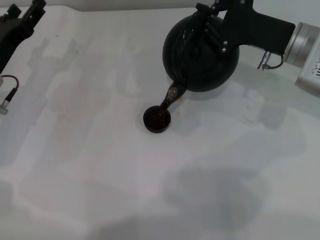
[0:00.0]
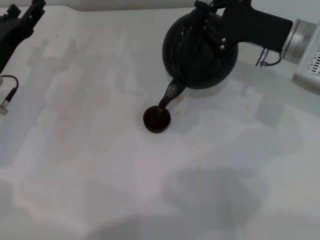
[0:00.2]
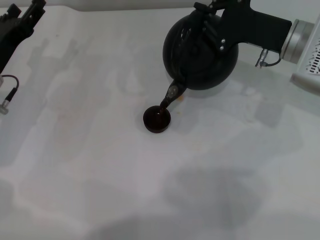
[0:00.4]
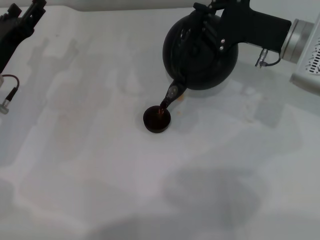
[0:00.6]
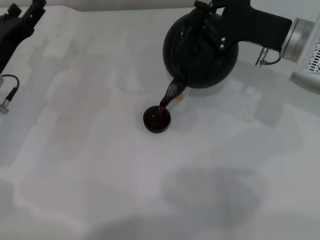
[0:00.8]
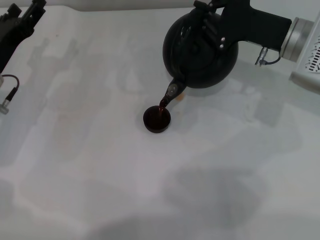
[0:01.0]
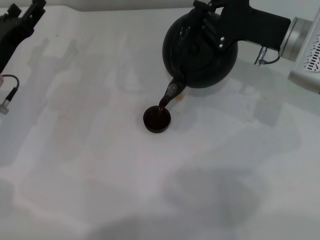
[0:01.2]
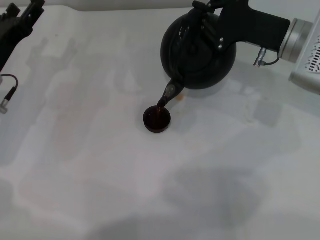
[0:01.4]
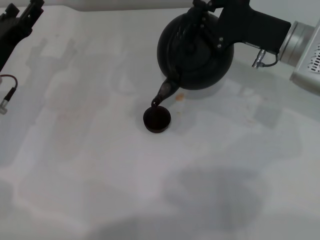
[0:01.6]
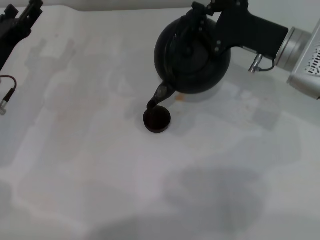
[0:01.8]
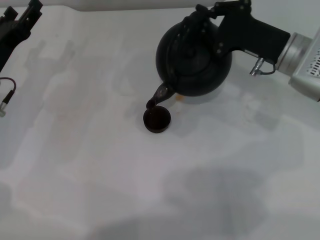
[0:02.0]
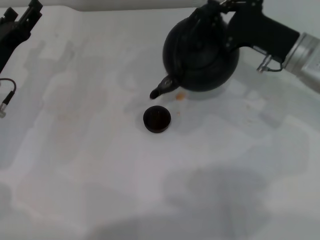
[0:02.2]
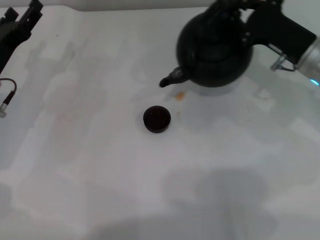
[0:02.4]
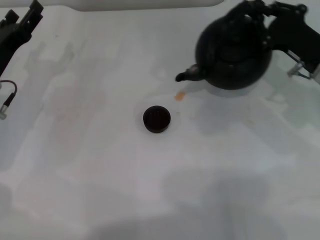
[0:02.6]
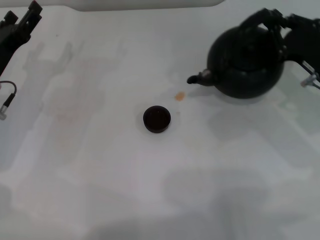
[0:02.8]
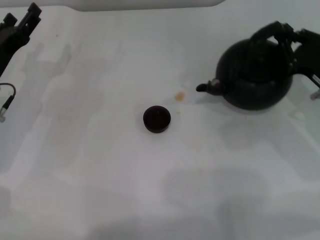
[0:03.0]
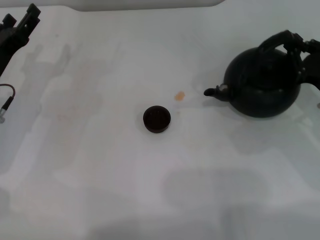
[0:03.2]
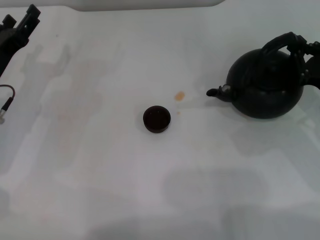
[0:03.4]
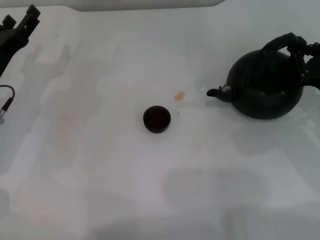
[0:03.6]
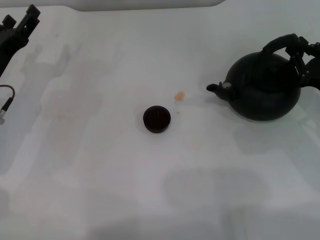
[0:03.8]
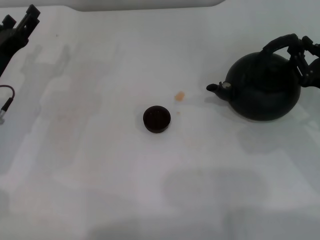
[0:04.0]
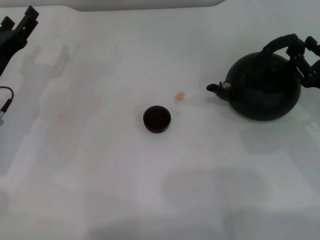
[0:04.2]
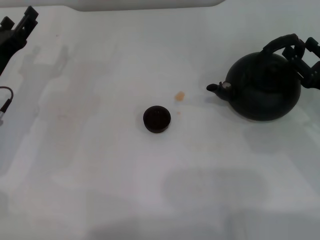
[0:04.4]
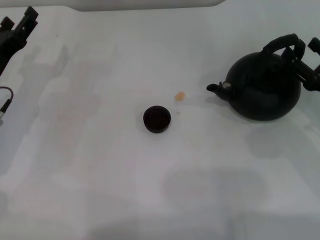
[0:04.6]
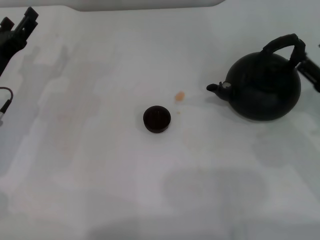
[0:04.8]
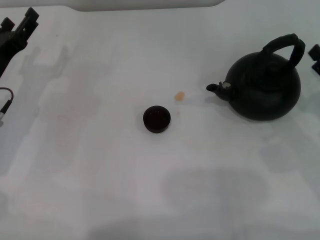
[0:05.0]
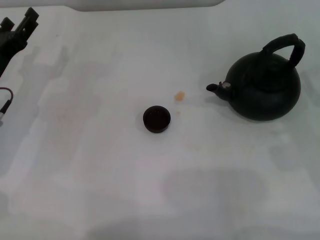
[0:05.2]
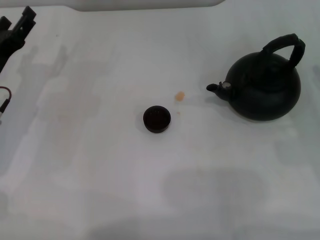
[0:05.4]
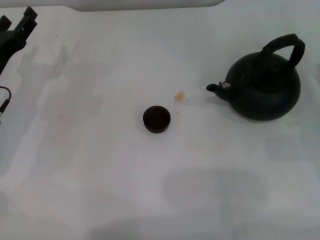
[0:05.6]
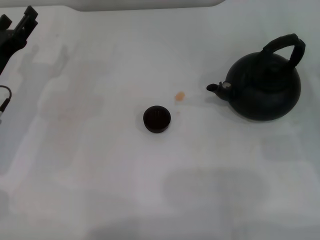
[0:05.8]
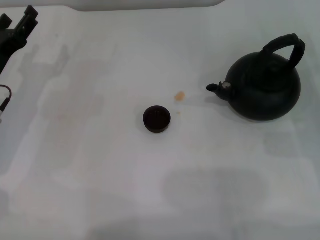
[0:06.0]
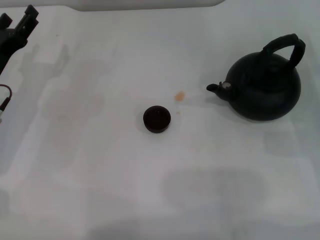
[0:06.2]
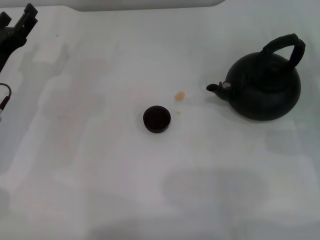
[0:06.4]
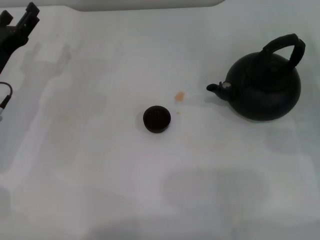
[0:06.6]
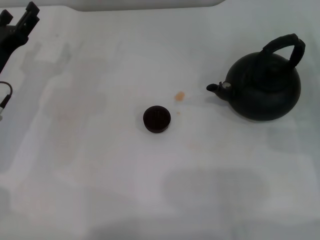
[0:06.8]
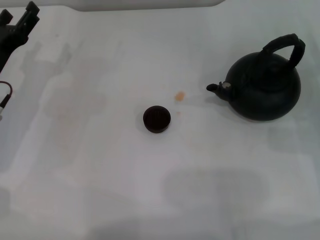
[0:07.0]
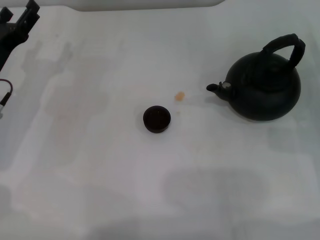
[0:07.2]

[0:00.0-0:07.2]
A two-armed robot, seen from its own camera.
Task of the whole recording: Grasp the handle of the teapot with one hand and pour tea into the teacup.
Step, 0.0 to 2.4 s: Pour tea into the teacup with the right gripper.
Step, 2.6 to 4.6 s: Put down the teapot with the right gripper.
0.0 to 1.4 s: The two grippers keep their place.
1.4 to 2.8 s: The right gripper goes some 10 cm to the right and backward.
2.8 to 4.4 s: The right gripper moves some 5 cm, and opens.
4.4 to 5.8 s: The right gripper opens its fingers.
5.8 to 7.2 s: The grippers make only small movements.

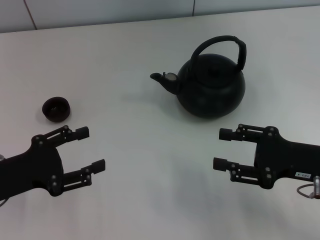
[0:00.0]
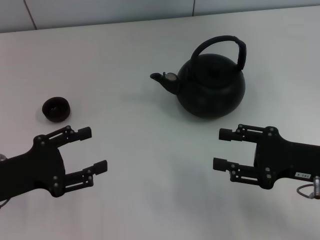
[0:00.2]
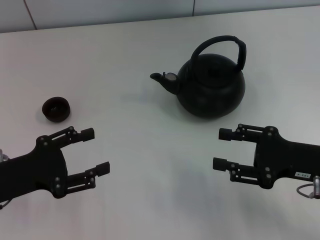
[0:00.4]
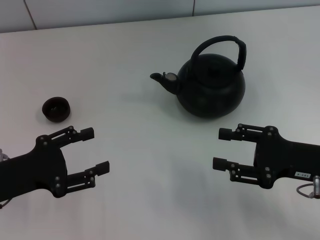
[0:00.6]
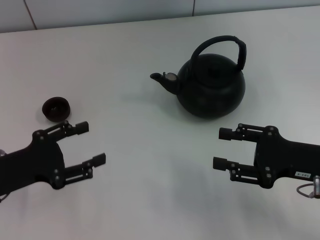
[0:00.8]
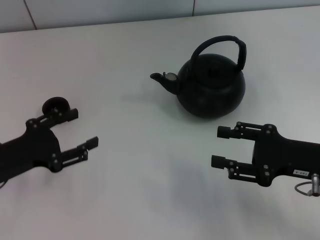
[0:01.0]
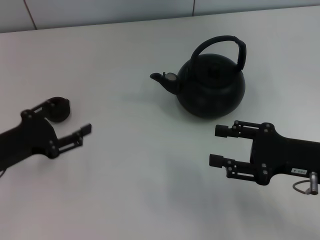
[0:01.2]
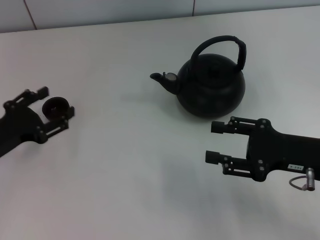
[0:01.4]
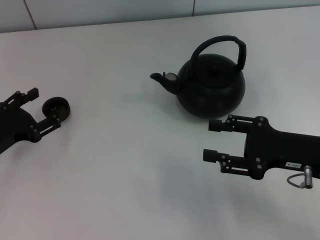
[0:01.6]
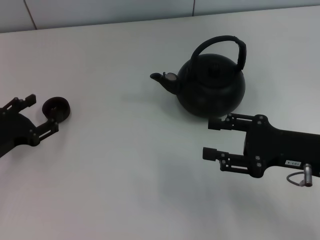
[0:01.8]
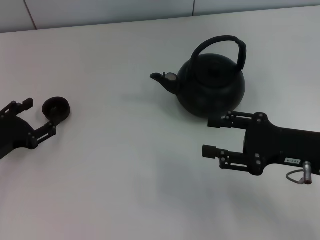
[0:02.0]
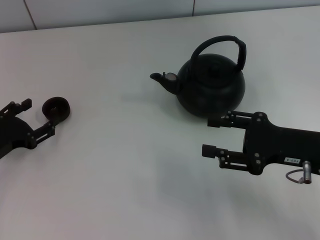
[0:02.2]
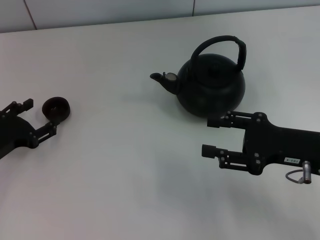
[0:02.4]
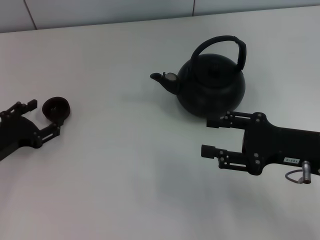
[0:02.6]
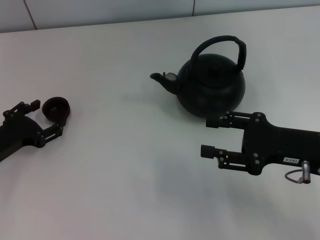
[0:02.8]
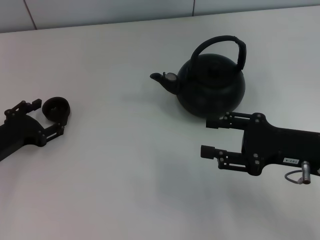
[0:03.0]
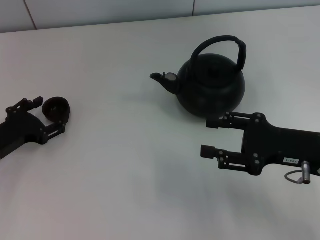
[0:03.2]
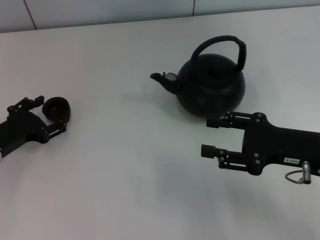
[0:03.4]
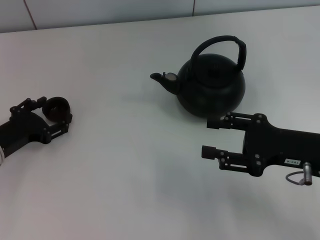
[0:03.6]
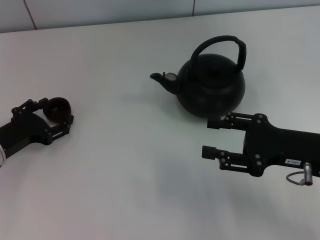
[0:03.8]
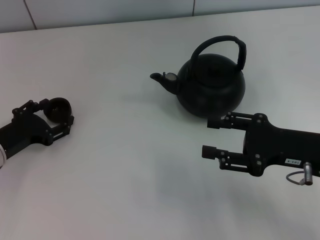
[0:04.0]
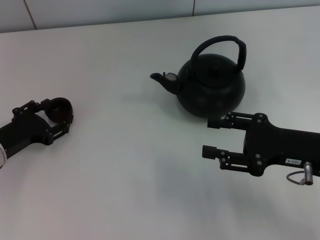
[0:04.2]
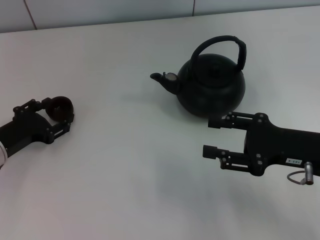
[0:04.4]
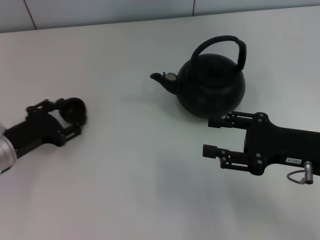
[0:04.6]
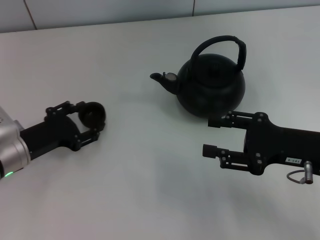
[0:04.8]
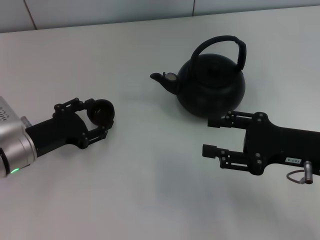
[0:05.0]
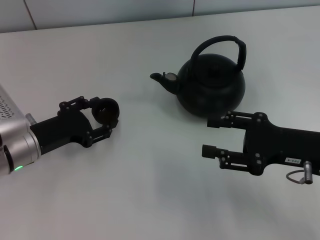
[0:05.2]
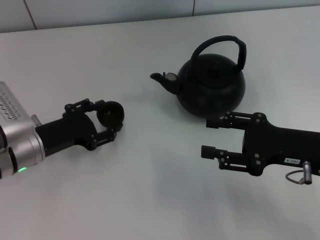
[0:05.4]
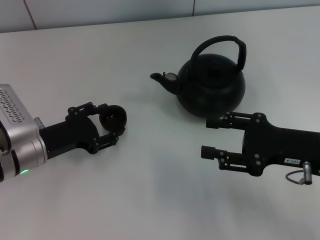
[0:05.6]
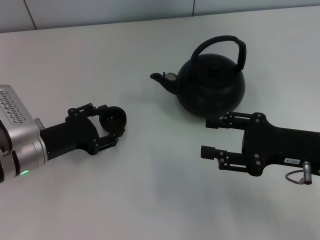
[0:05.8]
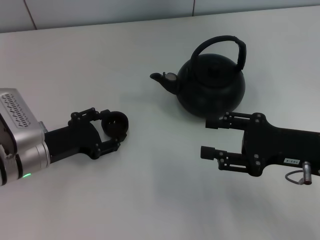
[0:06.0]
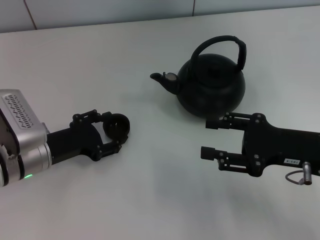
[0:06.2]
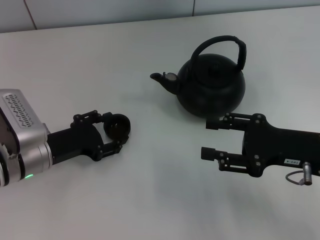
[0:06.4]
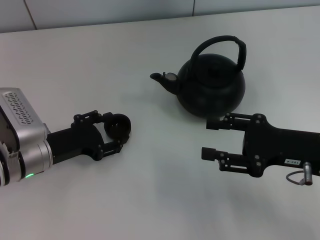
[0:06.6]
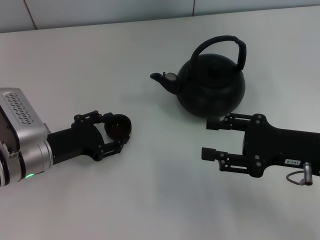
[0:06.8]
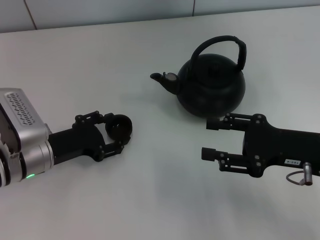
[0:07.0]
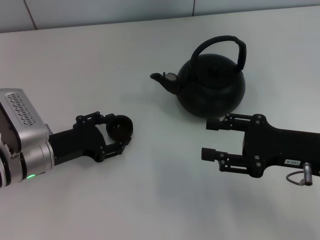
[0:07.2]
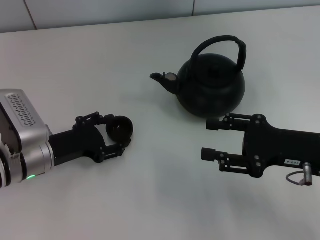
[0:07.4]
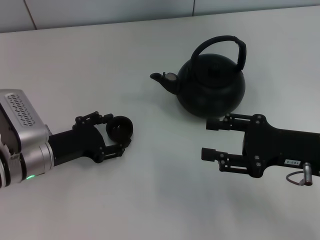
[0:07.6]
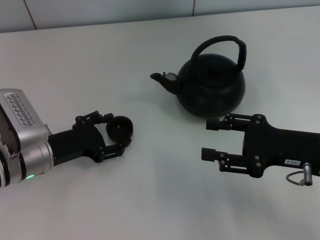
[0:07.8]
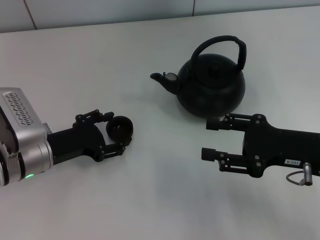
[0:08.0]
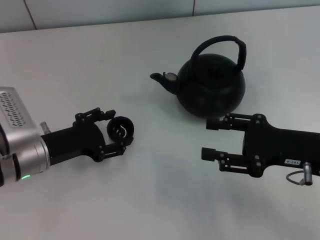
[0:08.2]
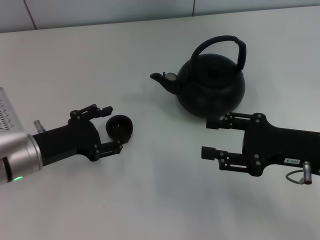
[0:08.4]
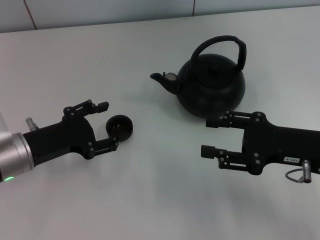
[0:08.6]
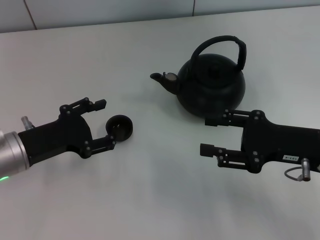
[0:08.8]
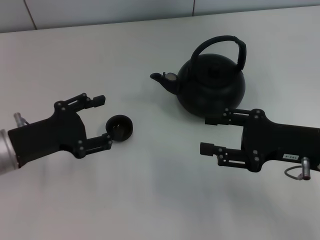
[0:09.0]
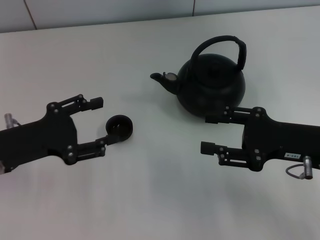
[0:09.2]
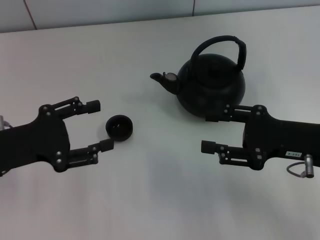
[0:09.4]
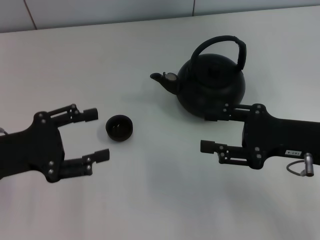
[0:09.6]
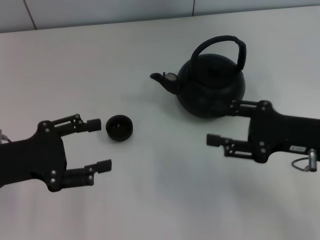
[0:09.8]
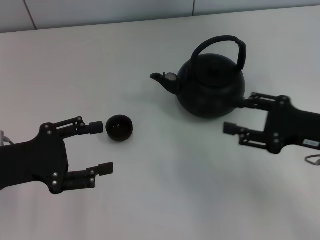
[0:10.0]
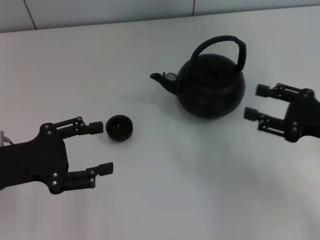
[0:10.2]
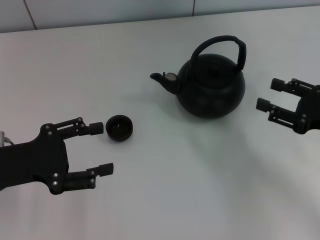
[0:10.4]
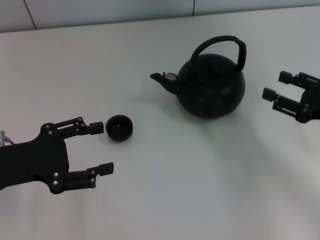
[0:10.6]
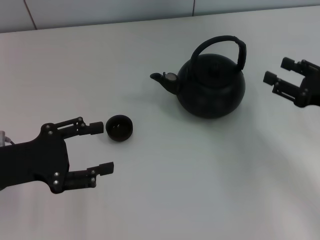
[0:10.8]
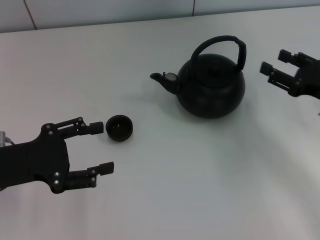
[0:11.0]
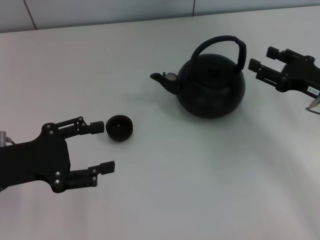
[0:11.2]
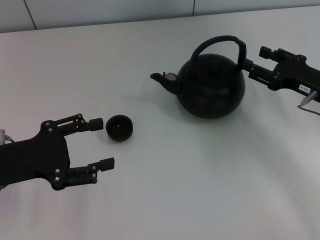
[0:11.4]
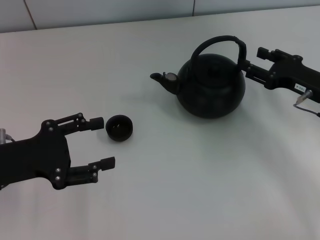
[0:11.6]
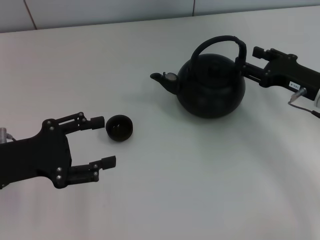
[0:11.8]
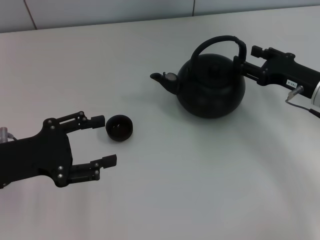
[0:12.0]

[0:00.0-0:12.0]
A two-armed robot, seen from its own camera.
Task of the whole recording: Grasp the handle of the teapot with one hand and pour tea into the teacup.
Step, 0.0 to 4.8 s: Pick up the teacup with the left gripper.
Step, 5.0 to 8.4 s: Place the teacup in the center of view with the left gripper.
0.0 to 1.6 s: The left gripper shifts by about 5 cm.
1.6 to 3.0 s: The grippers make only small movements.
3.0 to 4.4 s: Both grippers stay about where they are.
4.4 to 6.0 s: The left gripper heads to the right, covering approximately 5 cm.
6.0 to 7.6 s: Neither gripper changes place.
7.6 to 9.0 s: The left gripper shifts approximately 5 cm upward.
9.0 to 10.4 s: The right gripper heads to the right, covering approximately 5 cm.
10.4 to 12.0 s: The right gripper moves forward, roughly 10 cm.

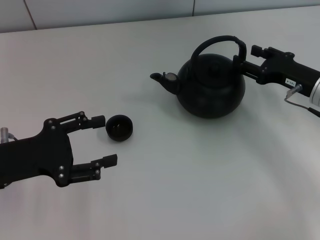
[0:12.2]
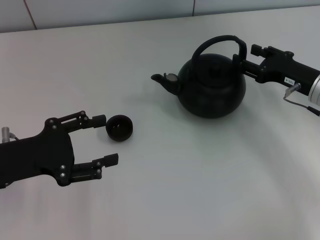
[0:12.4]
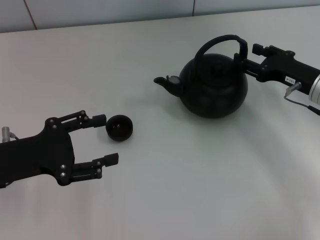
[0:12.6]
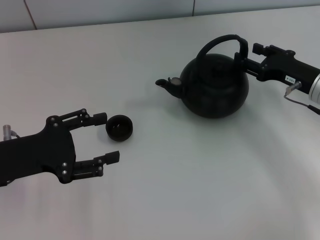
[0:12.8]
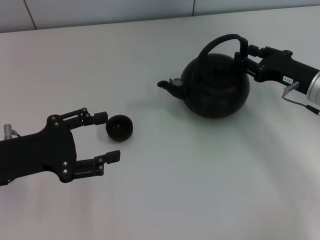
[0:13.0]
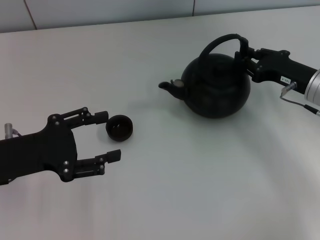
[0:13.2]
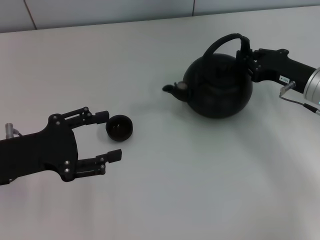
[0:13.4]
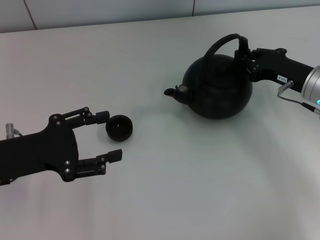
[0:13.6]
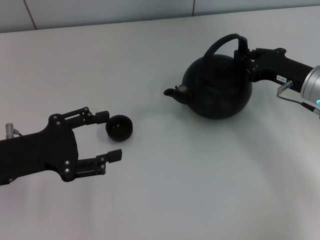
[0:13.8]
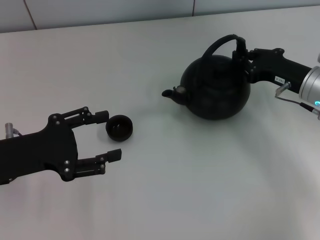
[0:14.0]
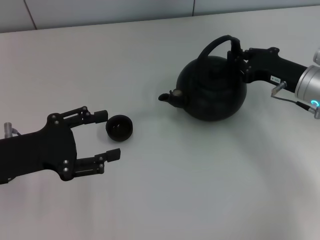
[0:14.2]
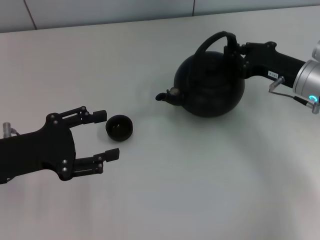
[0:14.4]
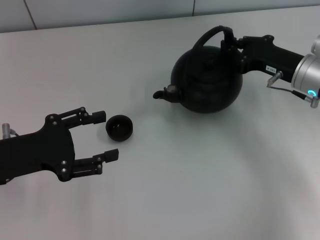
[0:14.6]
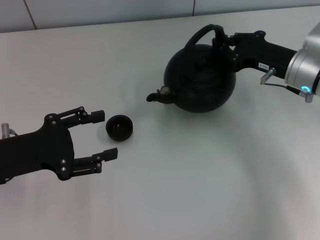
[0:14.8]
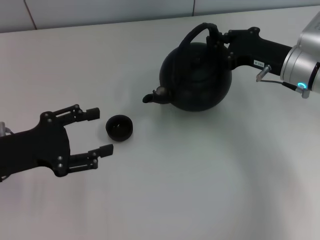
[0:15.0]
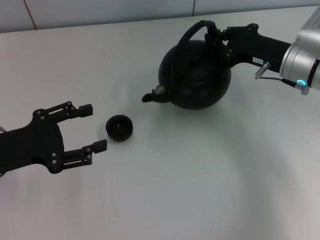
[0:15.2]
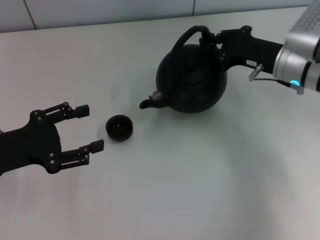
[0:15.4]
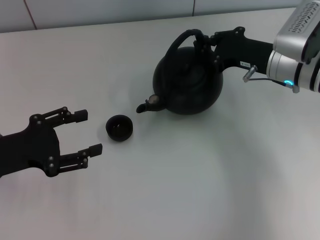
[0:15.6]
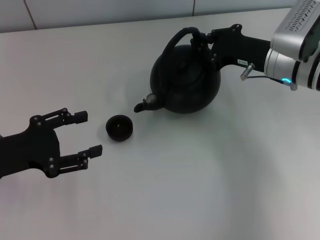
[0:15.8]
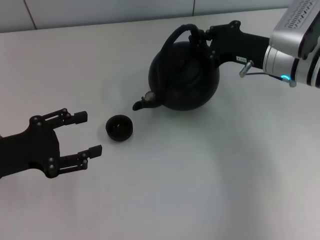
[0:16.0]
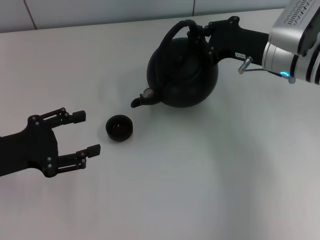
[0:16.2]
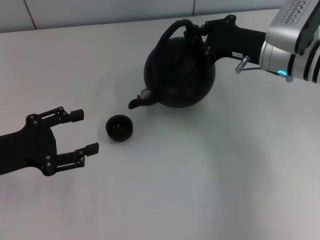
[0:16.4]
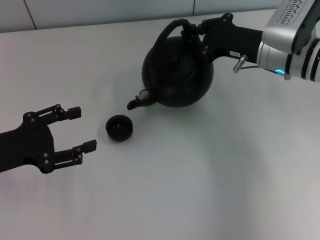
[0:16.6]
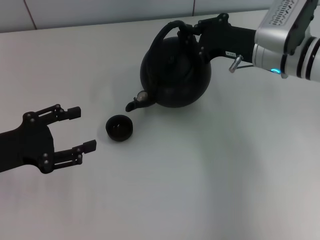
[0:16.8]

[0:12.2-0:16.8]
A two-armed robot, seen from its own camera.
Task of the whole recording: Grasp the handle of the teapot with one hand and pour tea into the teacup.
Step, 12.2 to 15.6 s: Pick up the teapot with the right gripper.
12.2 to 13.8 s: The right gripper closes up.
13.8 to 15.2 s: The right gripper ends up about 5 cm from where it was.
15.2 to 16.8 s: The right gripper shifts by about 5 cm.
